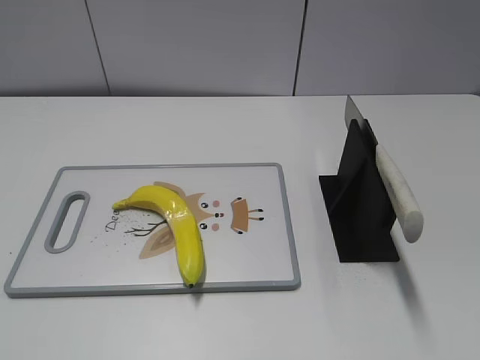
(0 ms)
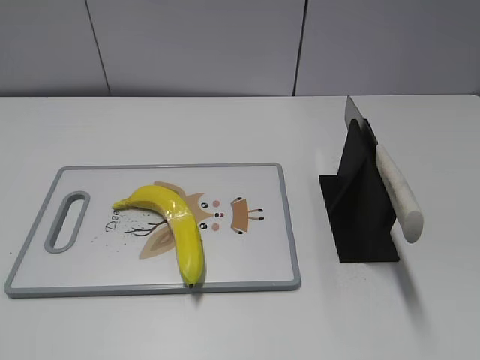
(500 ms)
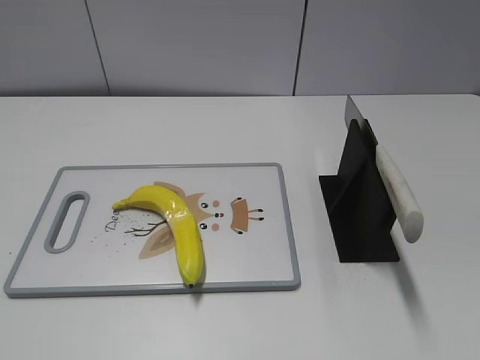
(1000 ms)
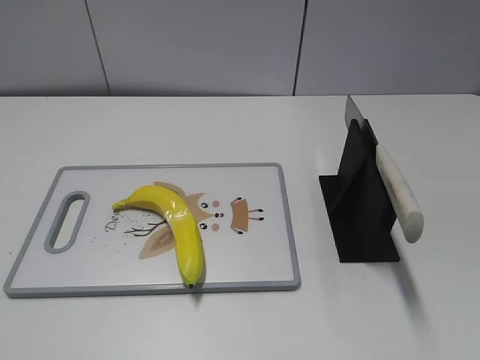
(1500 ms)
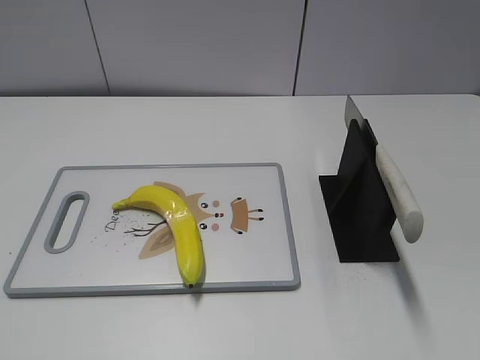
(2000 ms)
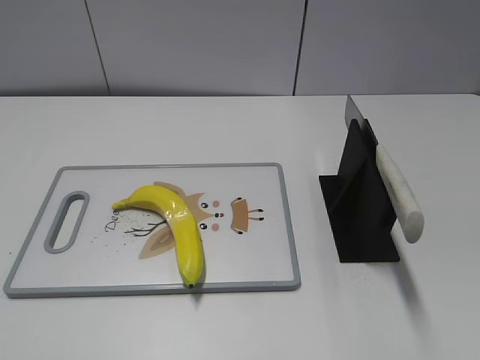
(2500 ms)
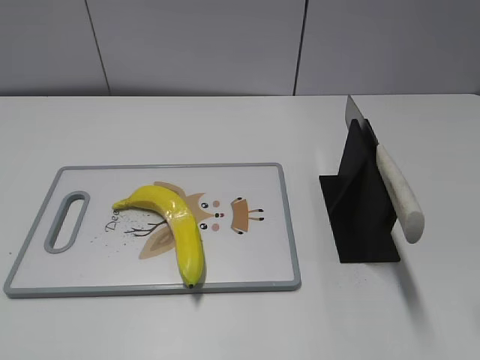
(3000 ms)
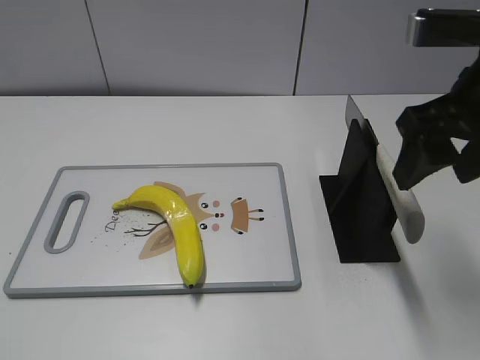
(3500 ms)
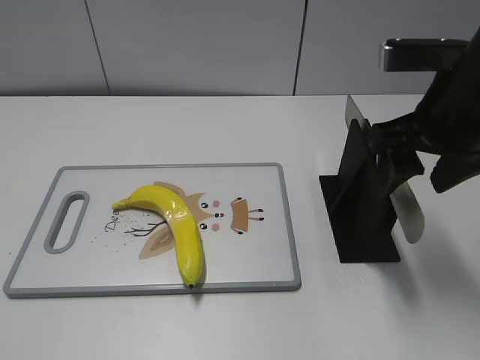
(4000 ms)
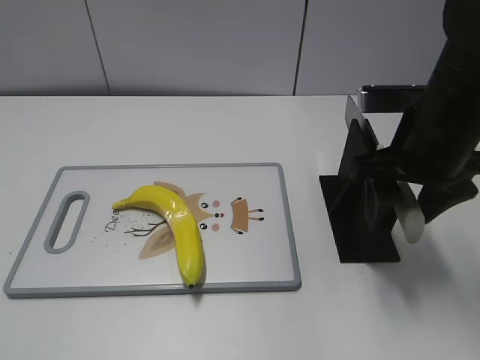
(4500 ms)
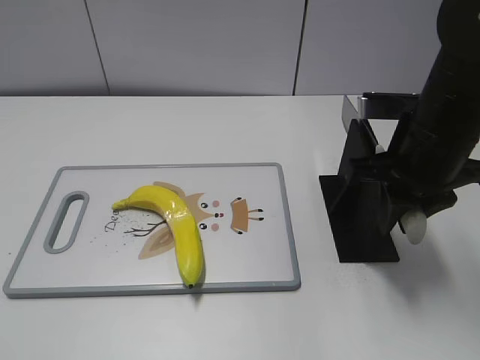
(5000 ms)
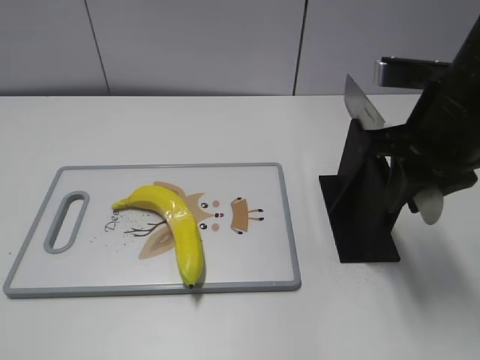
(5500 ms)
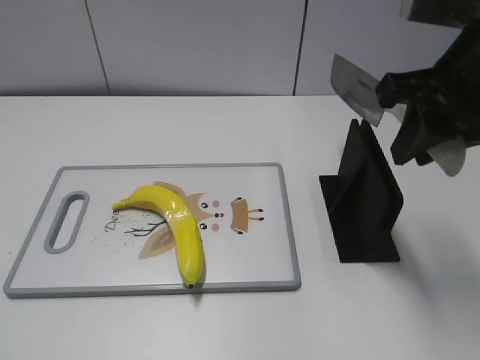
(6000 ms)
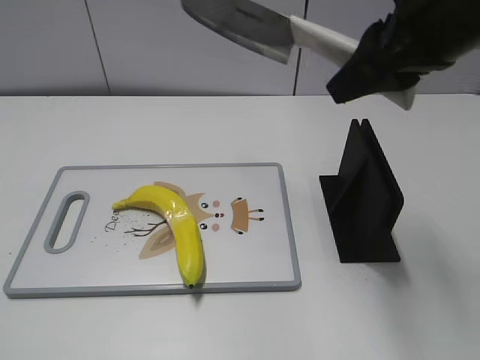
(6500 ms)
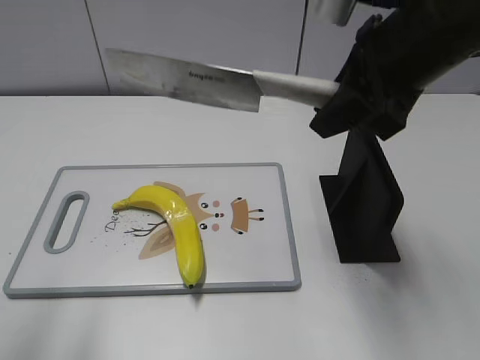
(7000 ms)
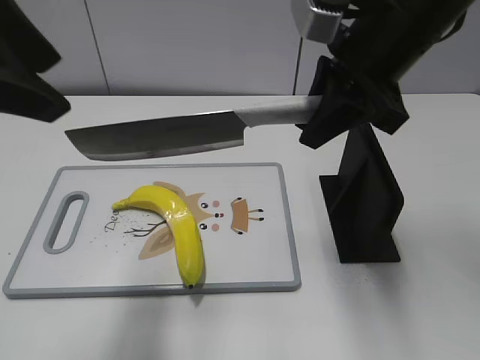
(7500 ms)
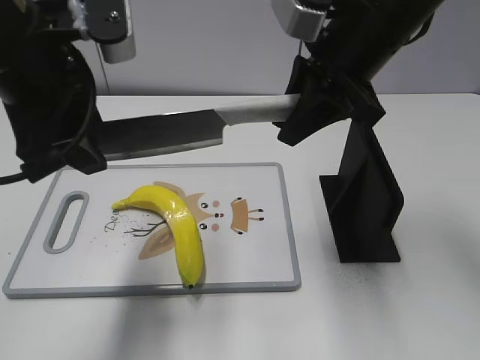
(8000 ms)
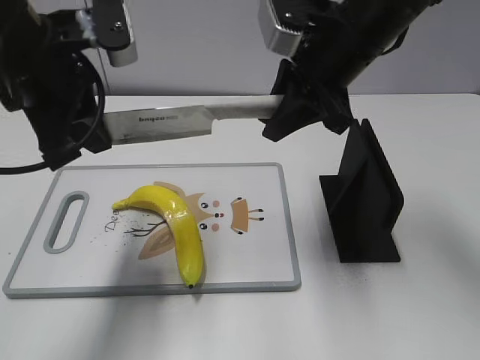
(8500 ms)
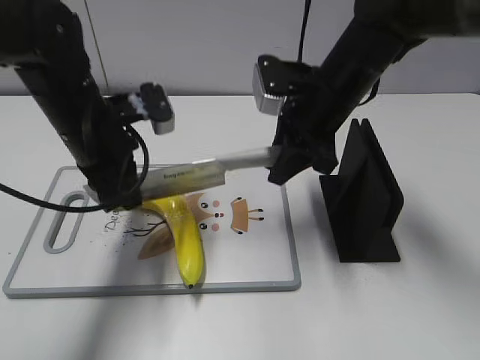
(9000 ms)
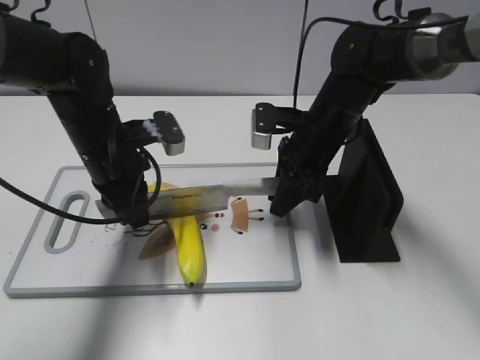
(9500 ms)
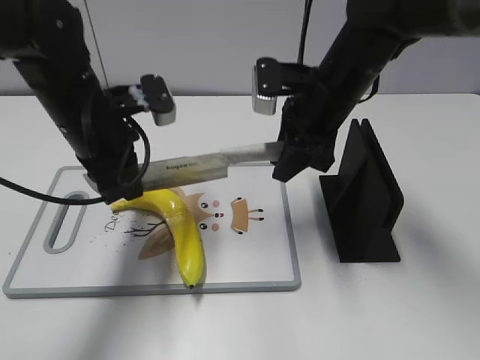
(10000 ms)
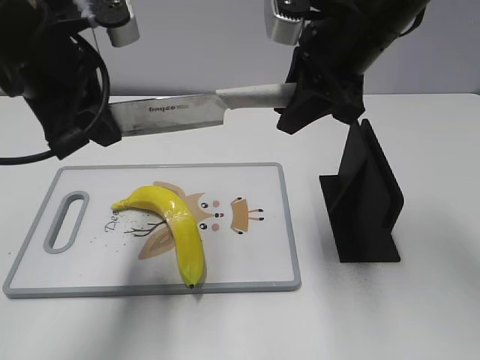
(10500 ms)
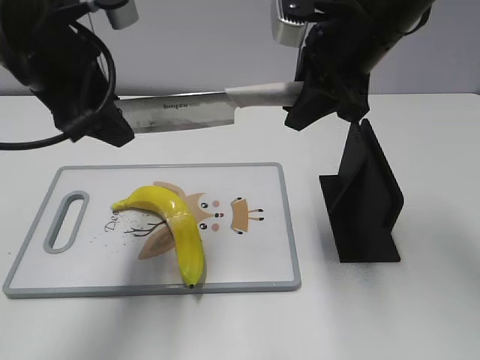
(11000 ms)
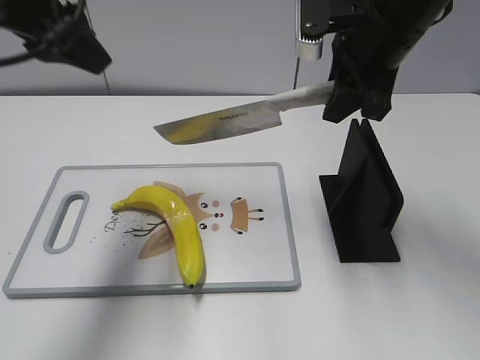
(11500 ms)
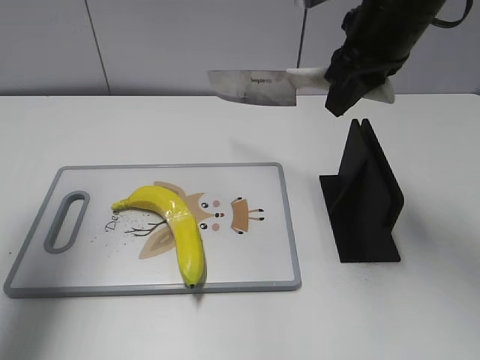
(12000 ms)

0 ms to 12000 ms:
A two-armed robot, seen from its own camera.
Task of the whole recording: cut plastic banana.
Step, 0 ms to 5500 ms: Grab the knife handle with your right hand.
Step, 6000 ms to 10000 ms: Lift the knife with your right hand.
Step, 10500 ms to 11500 ms: Cut the banana with your right hand.
2000 ms to 4000 ms: The right gripper goes some 25 cm forward.
4000 ms to 6000 ms: The right gripper closes its fingers.
6000 ms to 8000 ms: The left gripper travels forward and to the right by about 30 cm. The right gripper goes about 10 cm forward and to the left.
8000 ms to 10000 ms: The left gripper is displaced downward and forward by some 15 cm, and closes its fingers, while the right gripper is displaced downward by some 10 cm.
10000 ms to 12000 ms: The right gripper moves upward, approximately 10 cm. The left gripper moves upward and to the left, approximately 20 cm, and opens.

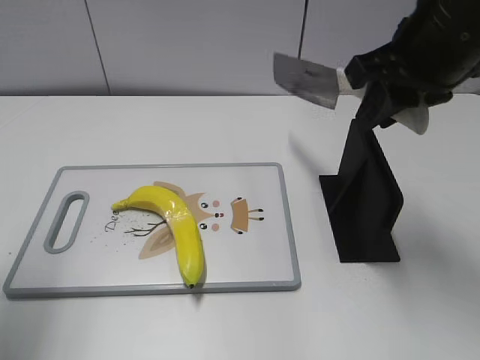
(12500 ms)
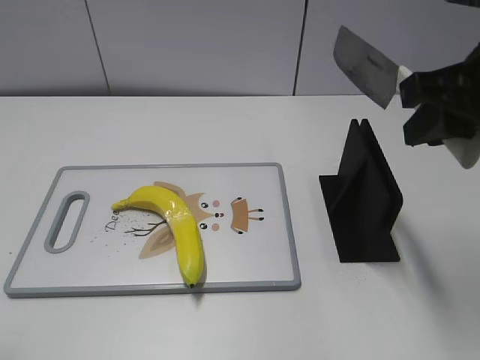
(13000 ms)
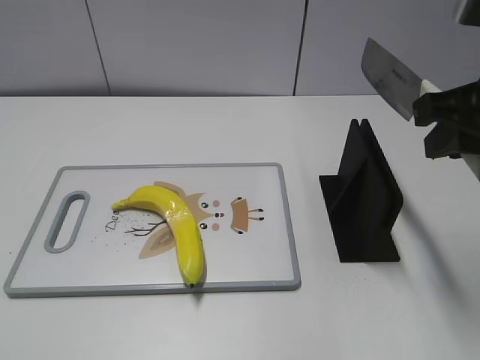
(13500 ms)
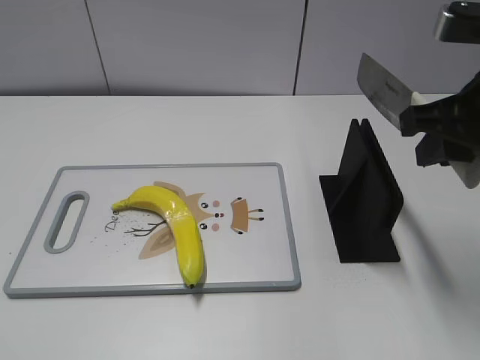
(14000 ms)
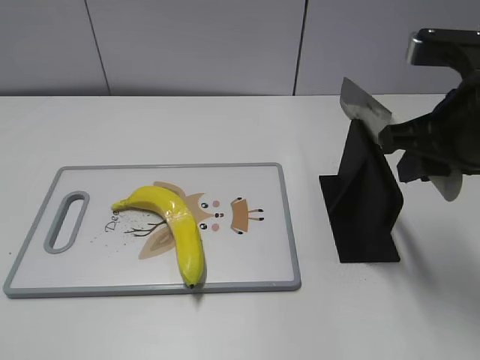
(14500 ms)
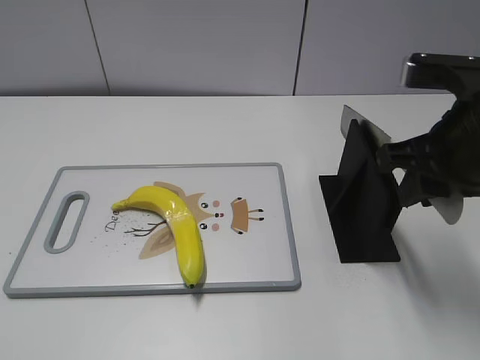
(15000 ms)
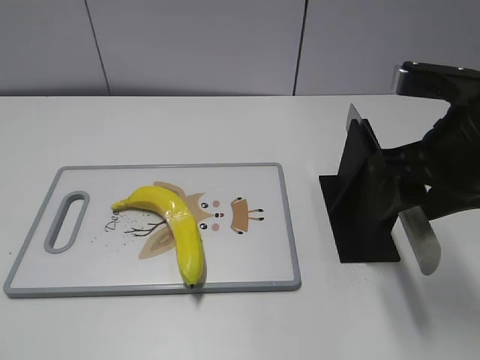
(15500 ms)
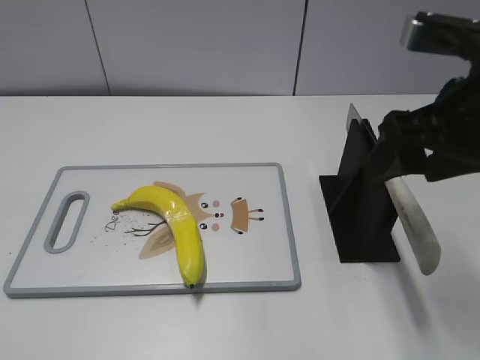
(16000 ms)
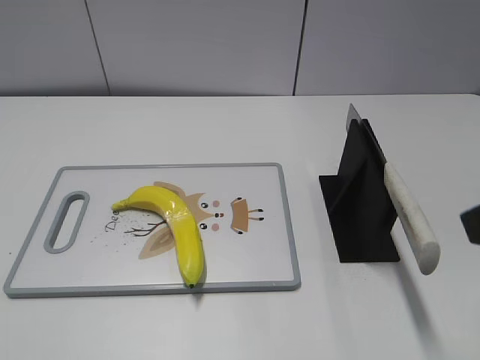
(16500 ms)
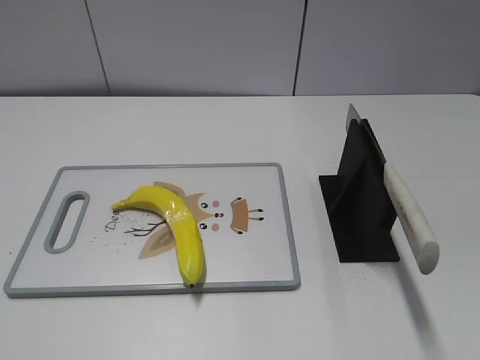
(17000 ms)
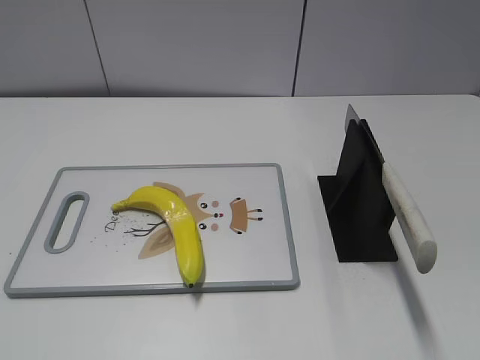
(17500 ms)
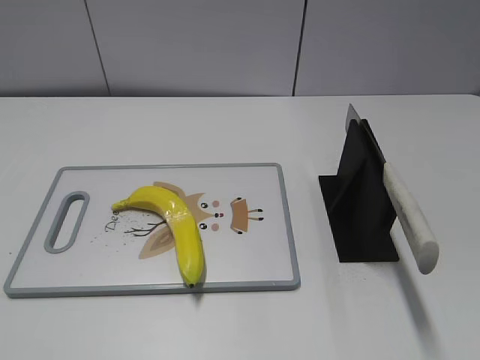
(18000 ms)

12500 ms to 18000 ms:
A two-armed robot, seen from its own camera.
Task of the whole recording: cut plastic banana.
Step, 12500 ms to 13500 ms: Lift the knife with your right hand.
Step, 14000 ms to 18000 ms: Place the knife on the storage rack with your right hand.
12500 ms to 14500 ms: The right gripper moves some 10 cm; the left gripper heads backward, covering roughly 20 cm.
14500 ms to 16000 ms: The right gripper opens up.
16000 ms to 18000 ms: The right gripper moves backward, about 25 cm.

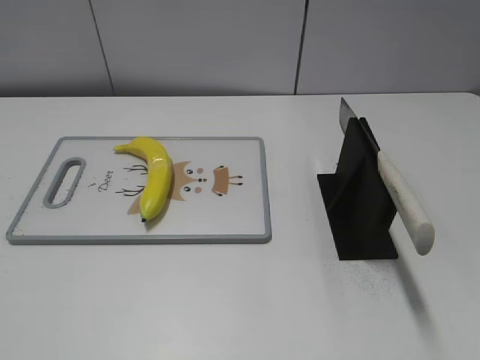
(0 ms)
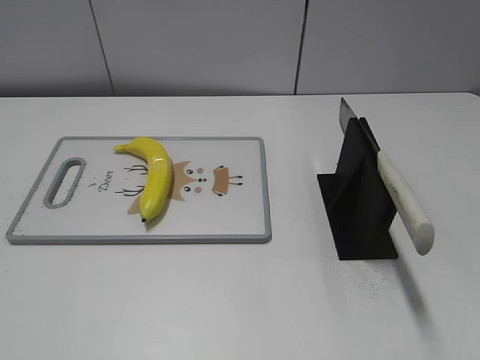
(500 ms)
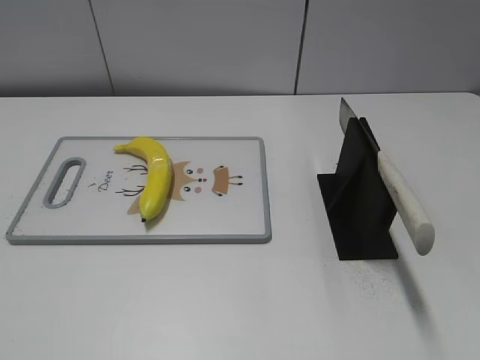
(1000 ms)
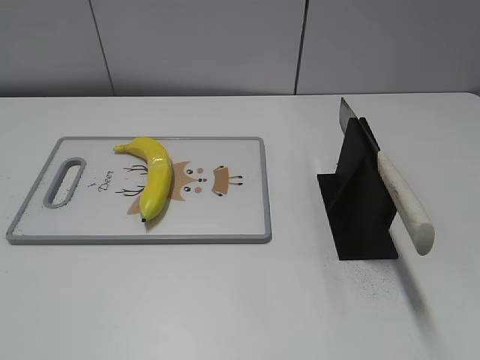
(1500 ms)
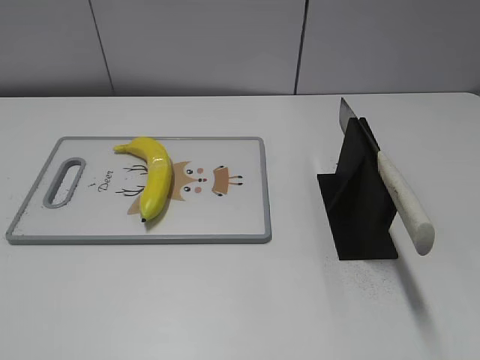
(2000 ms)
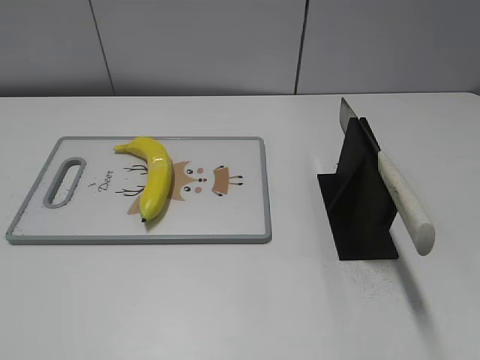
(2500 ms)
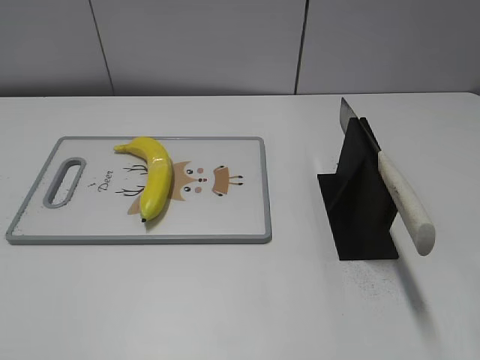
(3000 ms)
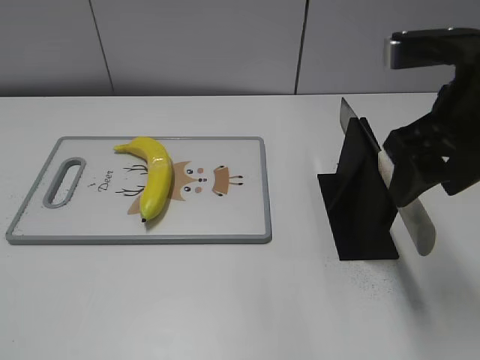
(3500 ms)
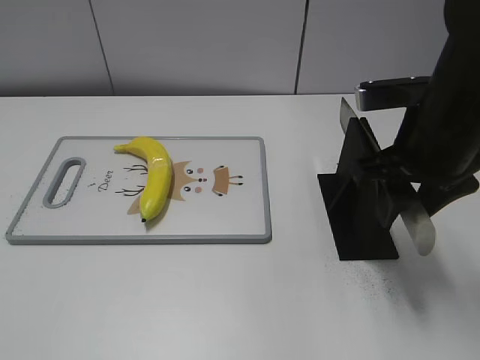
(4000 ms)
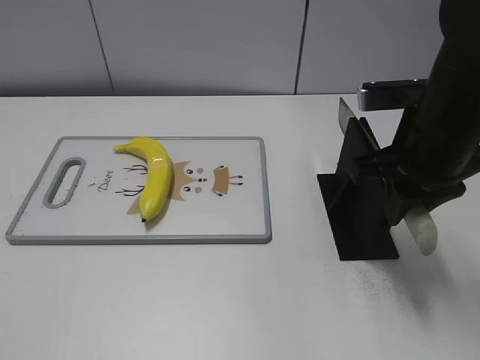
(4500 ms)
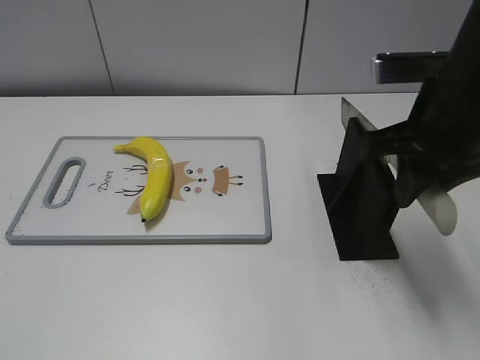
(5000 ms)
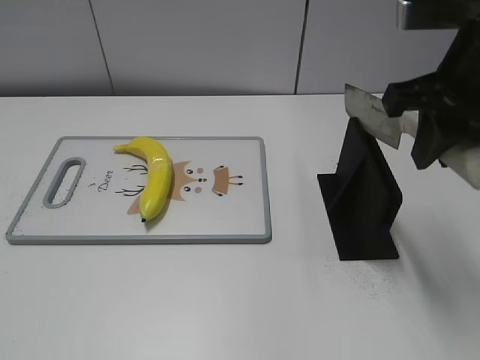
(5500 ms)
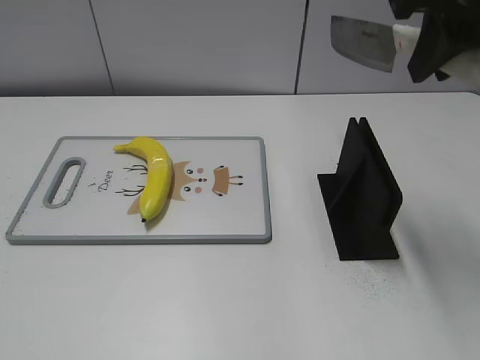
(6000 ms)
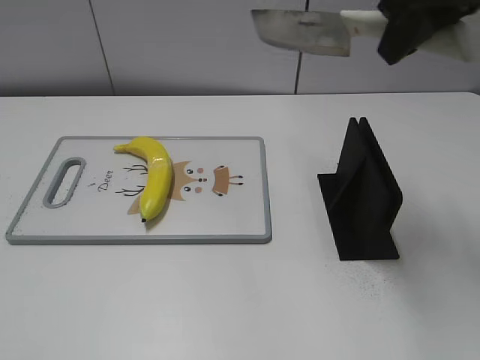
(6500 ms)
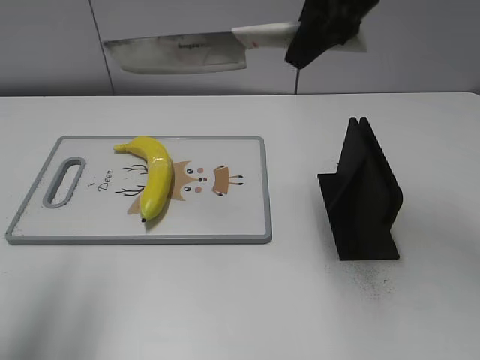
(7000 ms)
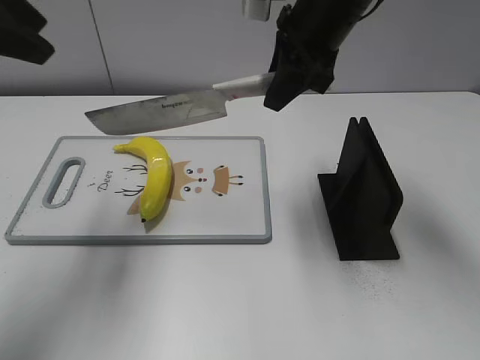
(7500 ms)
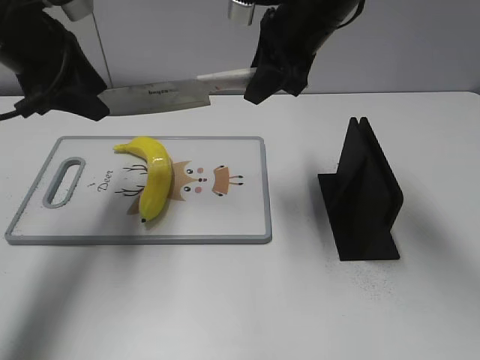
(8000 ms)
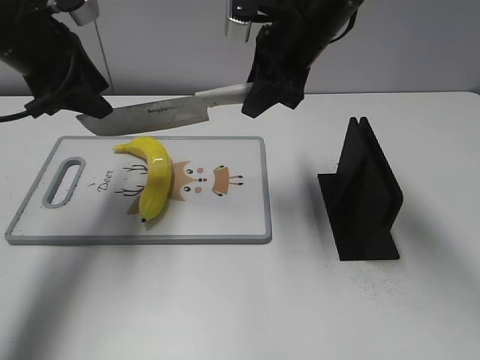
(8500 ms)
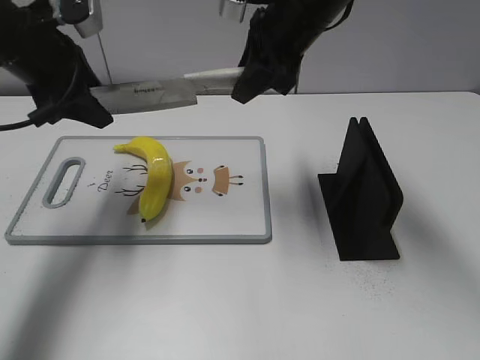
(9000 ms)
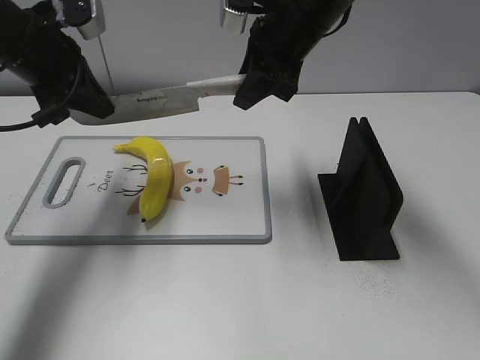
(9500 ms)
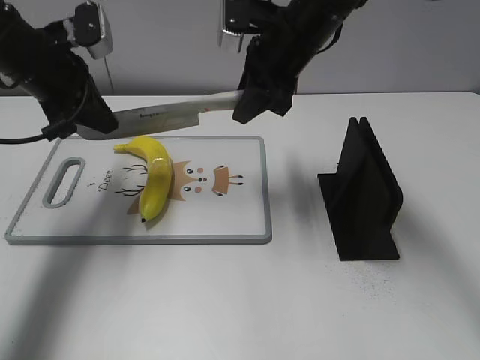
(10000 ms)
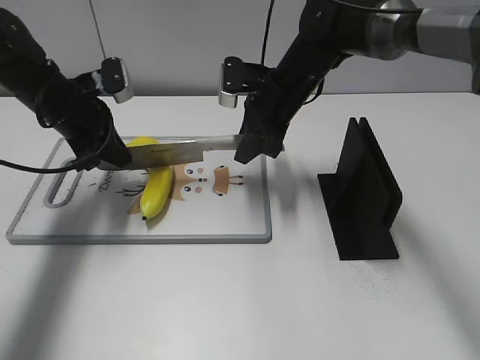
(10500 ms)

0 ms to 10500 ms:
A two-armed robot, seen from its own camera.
Task of the whole recording: cut plastic banana.
Step, 0 ms to 5000 ms: Grab the knife handle with your right hand.
2000 ms to 4000 ms: The right gripper heads forward and to the left, covering roughly 30 cm, and closes up.
4000 ms to 6500 ms: The left gripper heads upward, covering some 5 cm; the right gripper goes about 15 cm upward, and closes up.
6500 ms to 8500 ms: The right gripper travels downward, forward and to the left by about 20 cm. Meanwhile the left gripper heads forward, covering about 35 cm.
8500 ms to 10500 ms: Both grippers travel together downward, roughly 10 cm. The left gripper closes up.
